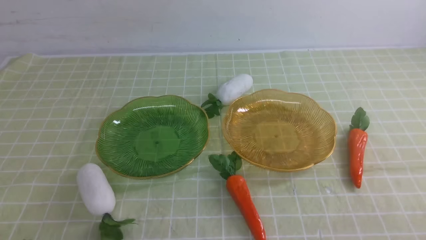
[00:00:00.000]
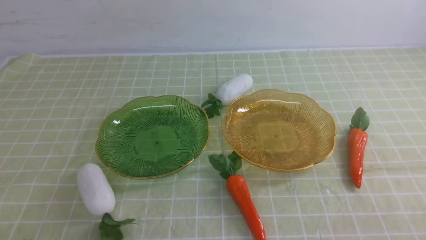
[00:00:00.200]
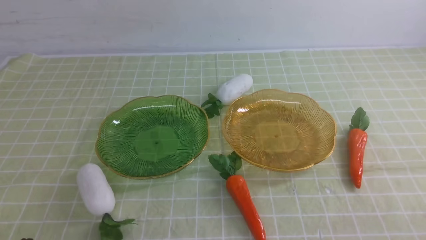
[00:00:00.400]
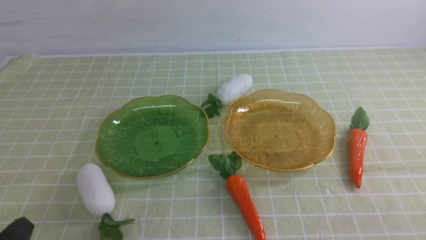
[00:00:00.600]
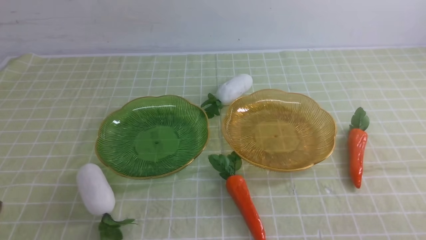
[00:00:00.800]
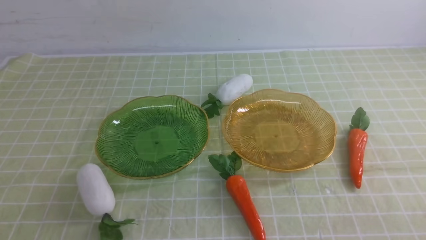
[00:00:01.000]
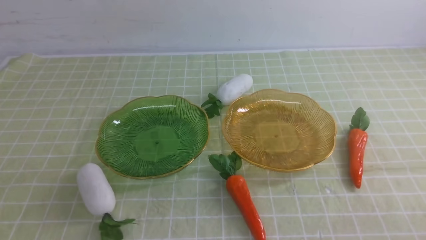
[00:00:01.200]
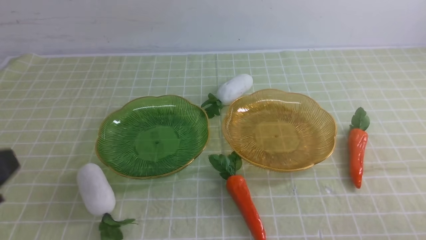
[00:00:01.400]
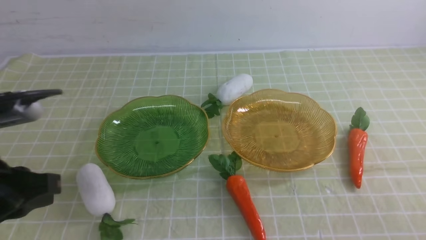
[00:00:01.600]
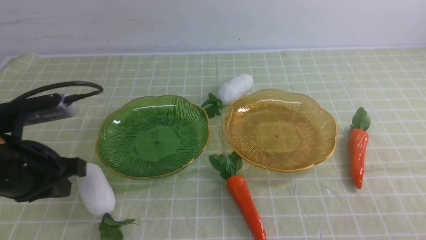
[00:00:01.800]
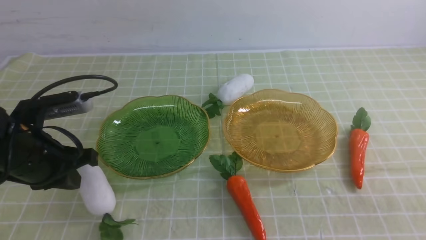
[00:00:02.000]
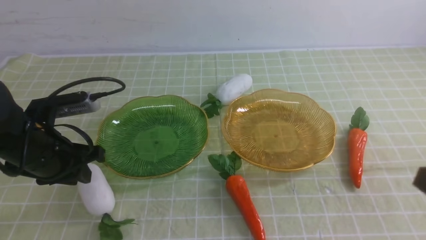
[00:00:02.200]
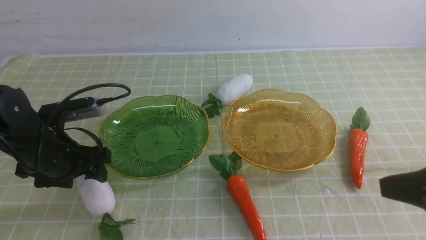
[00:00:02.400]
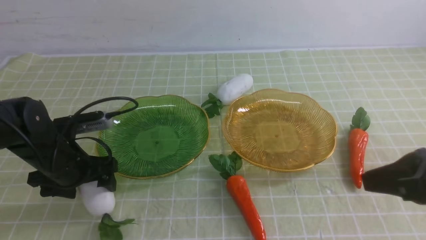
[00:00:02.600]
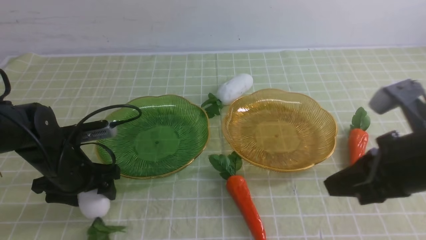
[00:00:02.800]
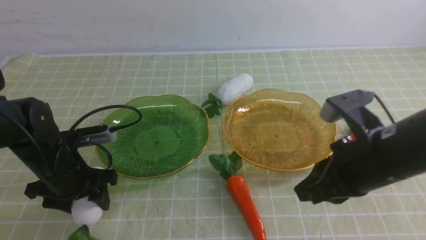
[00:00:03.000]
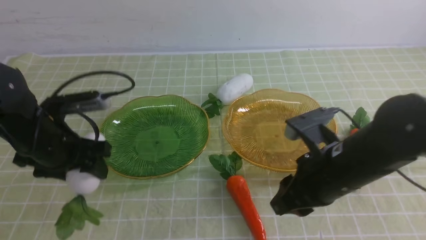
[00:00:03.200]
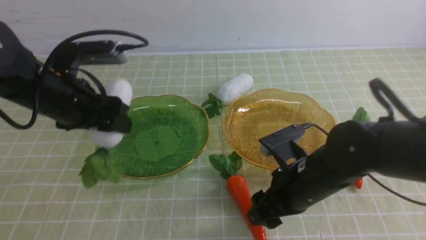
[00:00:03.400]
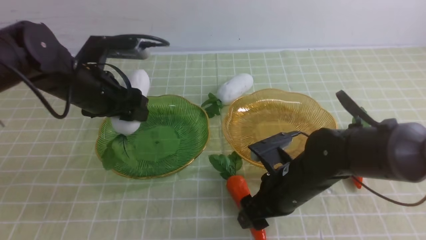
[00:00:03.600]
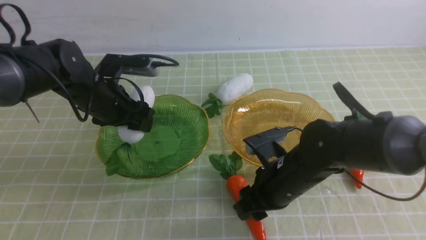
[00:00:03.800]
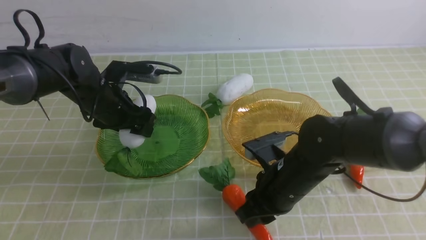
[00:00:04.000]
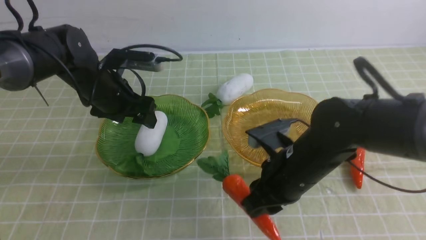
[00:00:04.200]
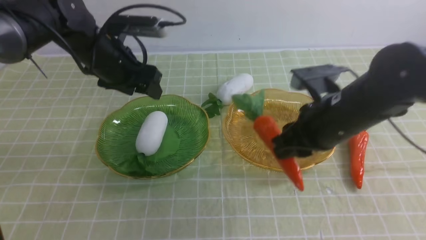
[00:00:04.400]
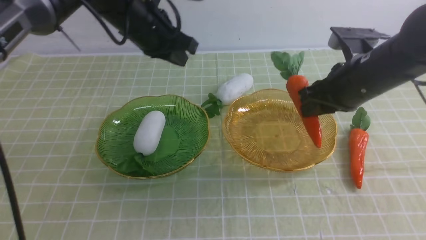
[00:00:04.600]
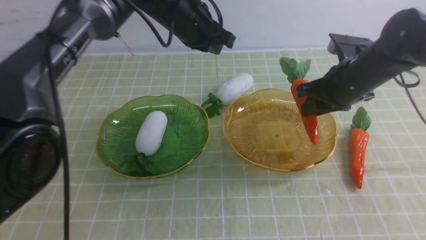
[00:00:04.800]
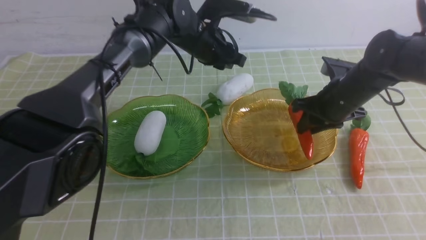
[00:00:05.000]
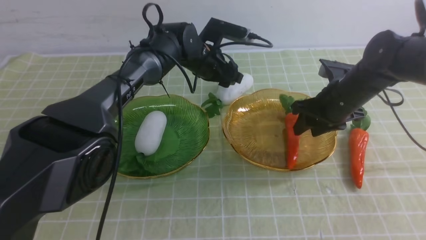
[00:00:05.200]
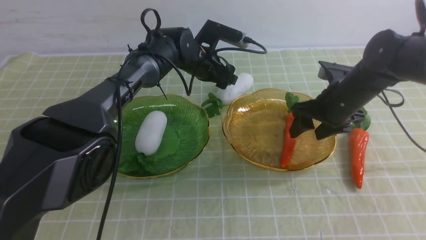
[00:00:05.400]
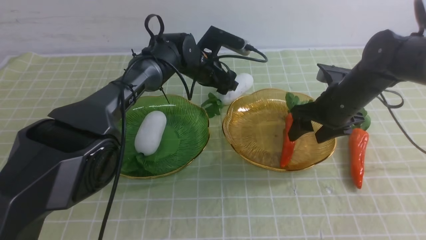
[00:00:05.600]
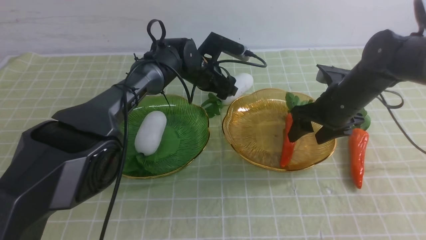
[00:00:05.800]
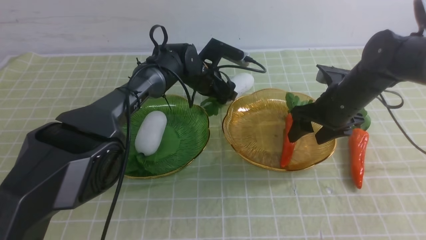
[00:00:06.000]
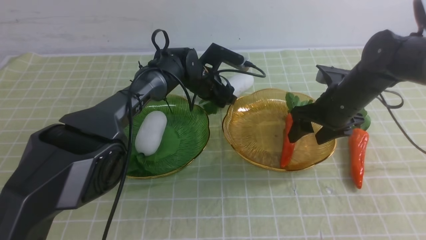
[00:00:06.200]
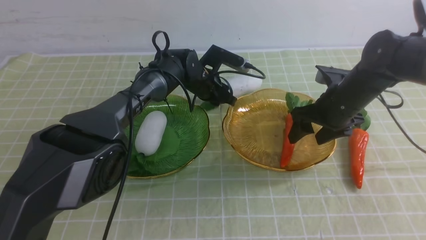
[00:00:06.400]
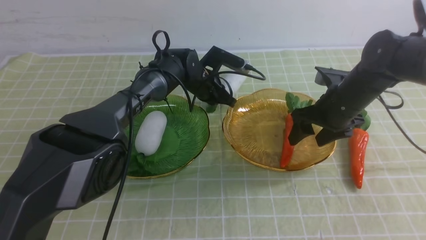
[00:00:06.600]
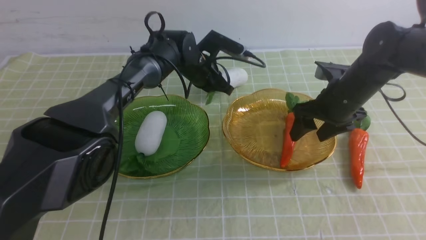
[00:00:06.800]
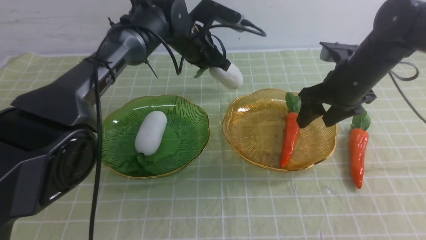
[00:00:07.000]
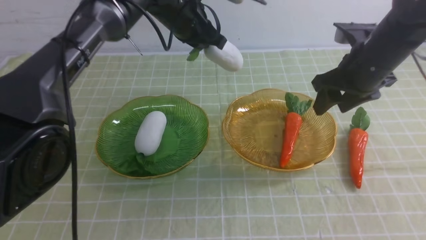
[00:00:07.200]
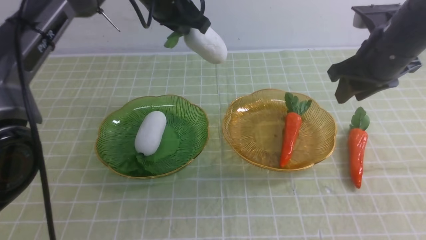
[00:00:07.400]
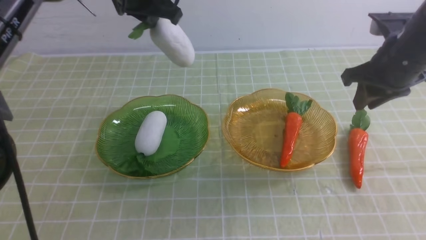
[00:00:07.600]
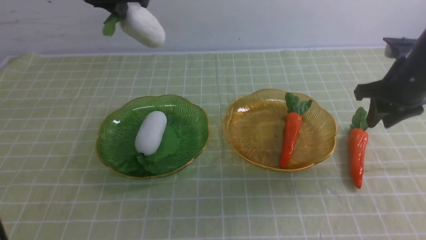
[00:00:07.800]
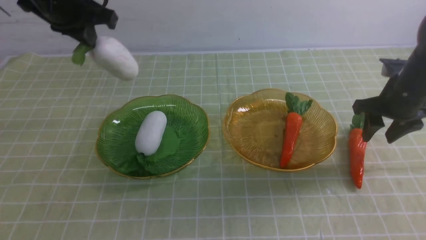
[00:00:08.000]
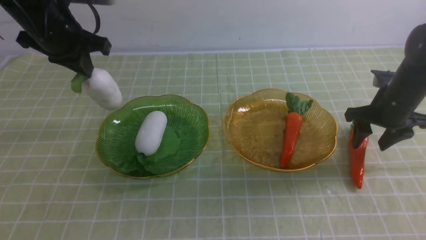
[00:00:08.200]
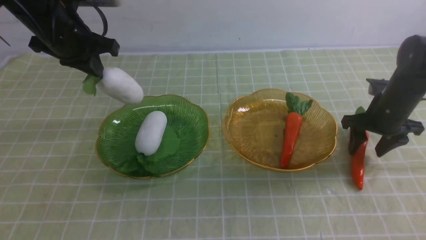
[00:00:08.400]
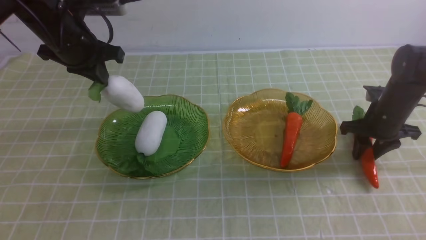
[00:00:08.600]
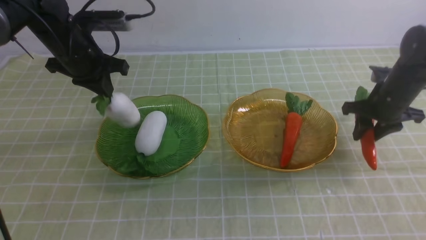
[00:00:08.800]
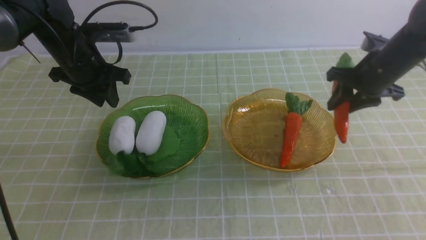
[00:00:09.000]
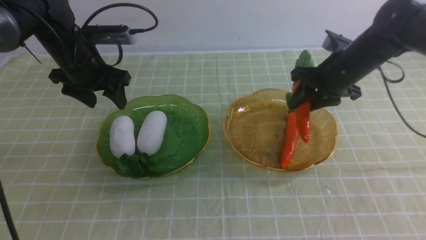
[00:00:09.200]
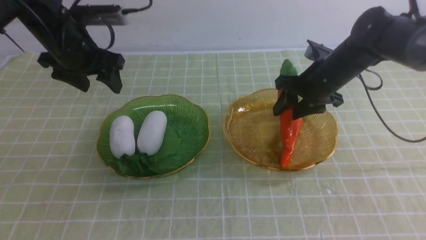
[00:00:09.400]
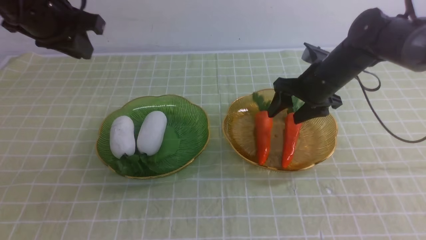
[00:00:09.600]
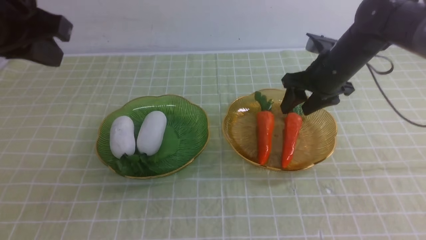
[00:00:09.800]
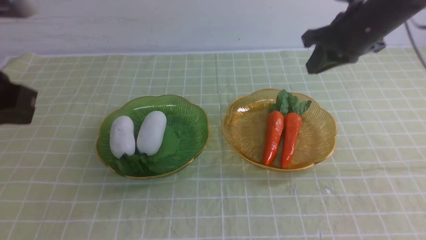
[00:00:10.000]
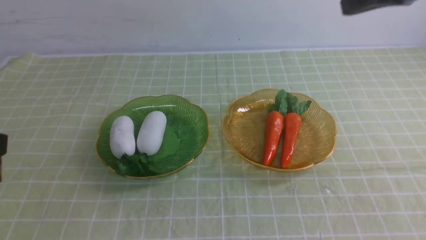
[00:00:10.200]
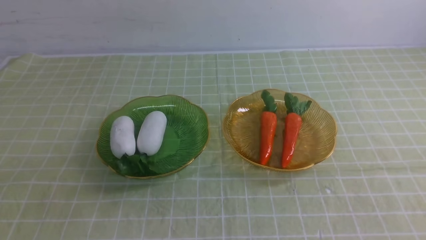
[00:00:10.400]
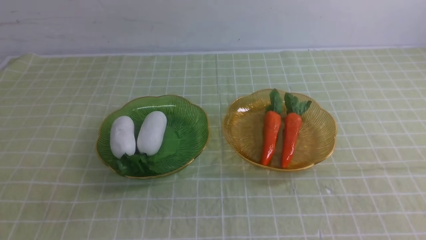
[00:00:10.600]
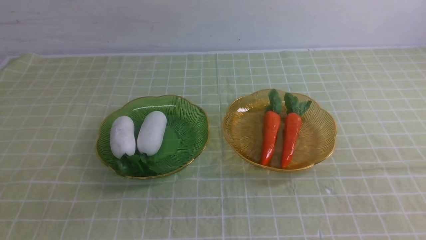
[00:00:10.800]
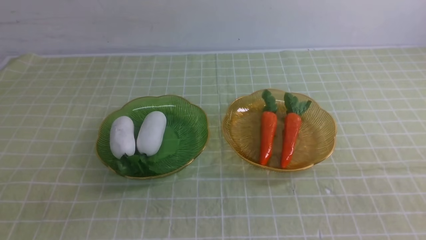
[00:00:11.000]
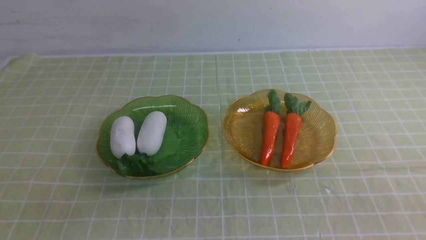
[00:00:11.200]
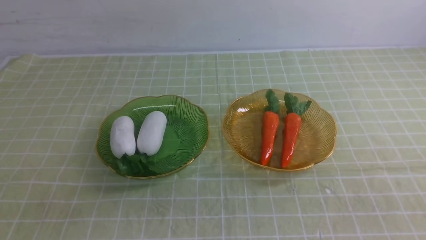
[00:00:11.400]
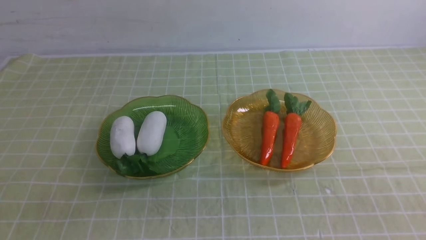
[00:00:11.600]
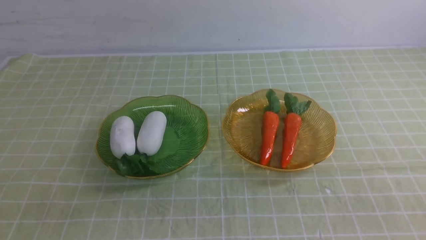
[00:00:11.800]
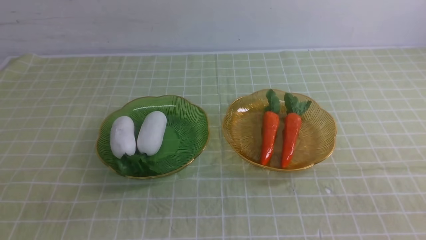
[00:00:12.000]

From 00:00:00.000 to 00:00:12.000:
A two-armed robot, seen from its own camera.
Step, from 00:00:00.000 to 00:00:04.000: use the left arm to grab a radish and put it into the left plate.
Step, from 00:00:04.400 to 00:00:05.600: use the right arm to grab a carrot and put it into the right plate.
Step, from 00:00:05.800 to 00:00:10.000: use the left arm to grab a radish and put it into the left plate.
From 00:00:00.000 to 00:00:01.600: The left gripper heads upward and forward, covering some 20 cm.
From 00:00:01.600 to 00:00:03.000: The right gripper goes about 20 cm forward and to the left; the left gripper moves forward and downward, roughly 20 cm, and opens up.
From 00:00:03.000 to 00:00:04.400: The left gripper heads forward, upward and to the right, covering some 20 cm. The right gripper travels forward by approximately 10 cm, moves roughly 10 cm downward and comes back, and opens and closes again.
From 00:00:04.400 to 00:00:06.000: The right gripper travels forward, downward and to the right by roughly 10 cm, and opens up. The left gripper shifts roughly 20 cm downward, to the right and forward, and closes and opens again.
From 00:00:06.000 to 00:00:07.600: The left gripper is displaced upward, backward and to the left by some 30 cm, and closes its fingers, while the right gripper goes about 10 cm upward and to the right, and closes up.
From 00:00:07.600 to 00:00:09.000: The right gripper shifts approximately 10 cm downward and forward. Meanwhile the left gripper heads downward and to the left, covering approximately 15 cm, and opens.
From 00:00:09.000 to 00:00:10.400: The left gripper shifts approximately 40 cm backward, and closes. The right gripper moves upward and backward, approximately 35 cm, and closes its fingers.
